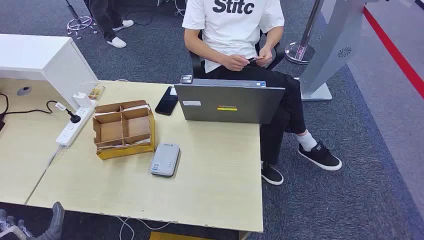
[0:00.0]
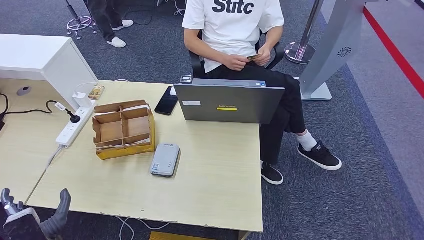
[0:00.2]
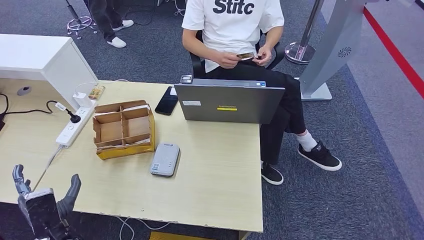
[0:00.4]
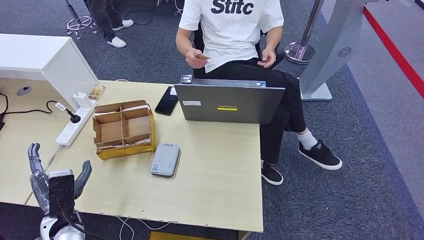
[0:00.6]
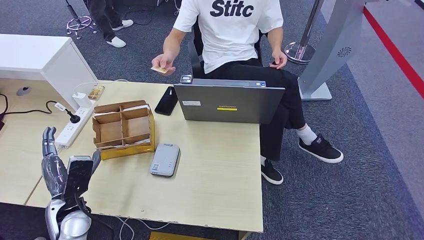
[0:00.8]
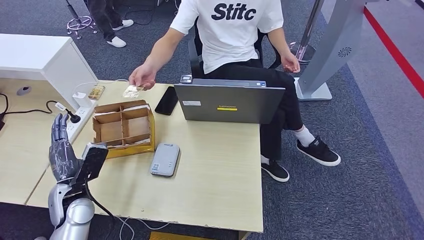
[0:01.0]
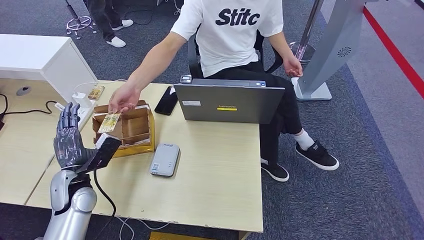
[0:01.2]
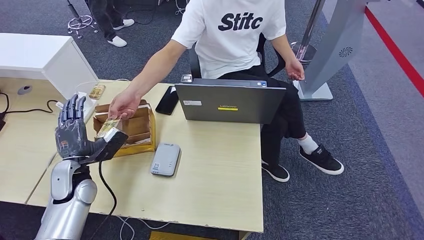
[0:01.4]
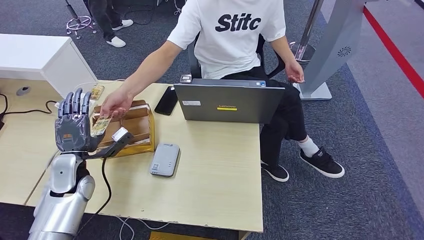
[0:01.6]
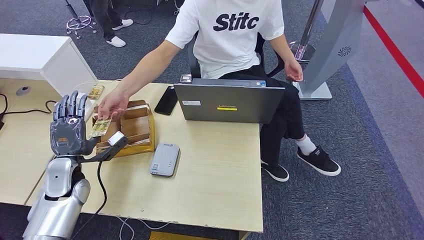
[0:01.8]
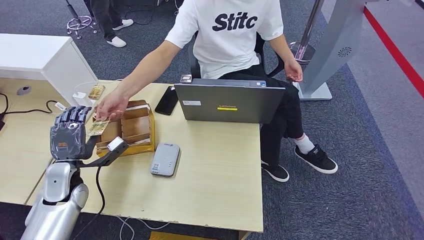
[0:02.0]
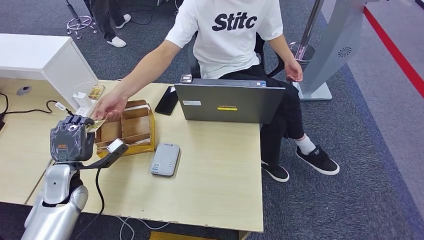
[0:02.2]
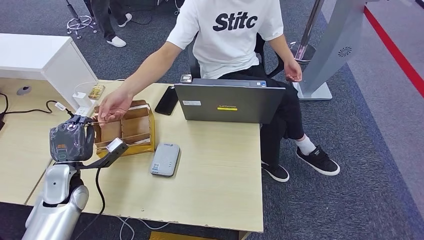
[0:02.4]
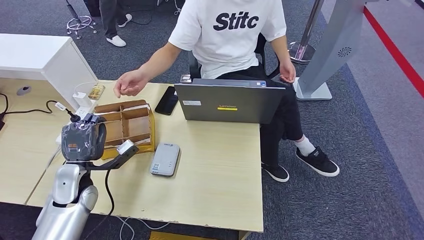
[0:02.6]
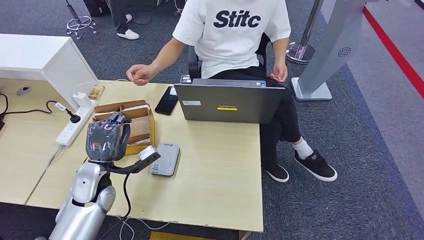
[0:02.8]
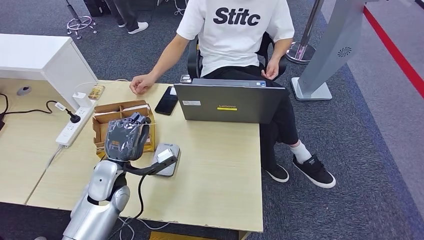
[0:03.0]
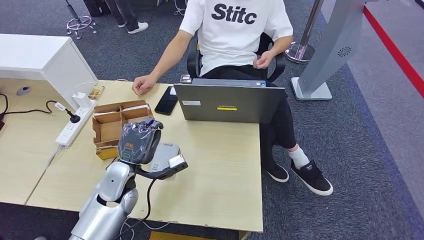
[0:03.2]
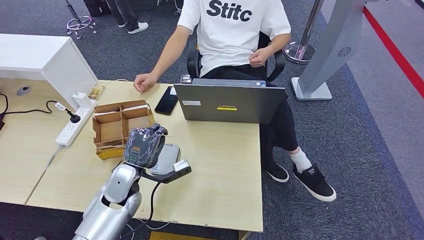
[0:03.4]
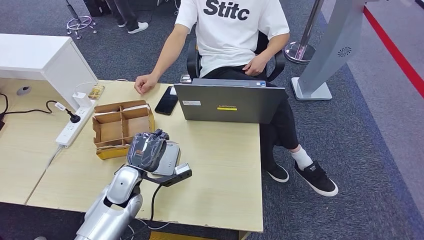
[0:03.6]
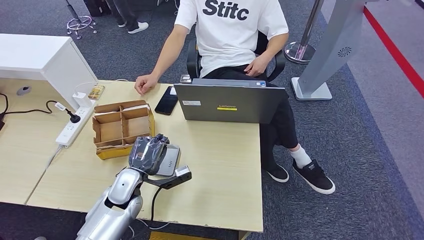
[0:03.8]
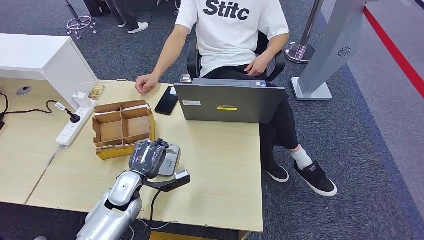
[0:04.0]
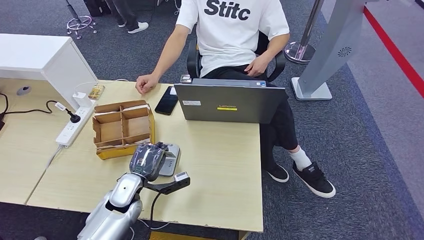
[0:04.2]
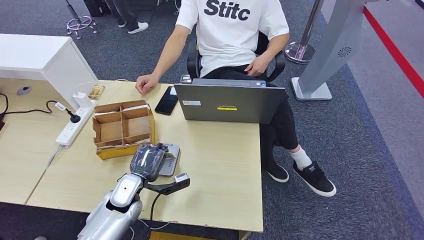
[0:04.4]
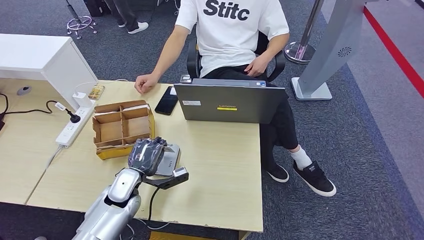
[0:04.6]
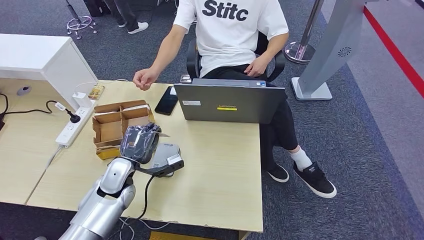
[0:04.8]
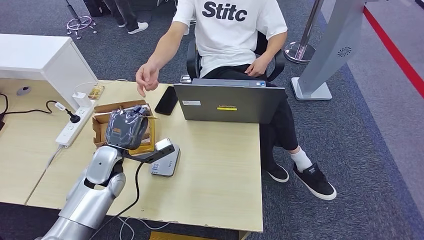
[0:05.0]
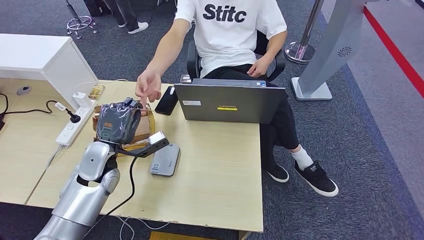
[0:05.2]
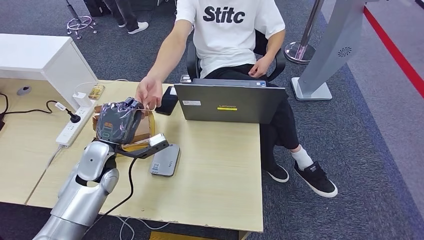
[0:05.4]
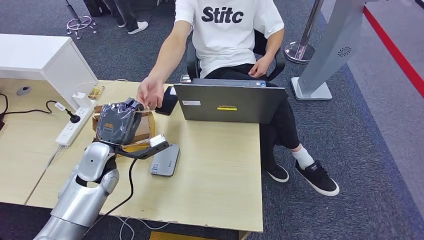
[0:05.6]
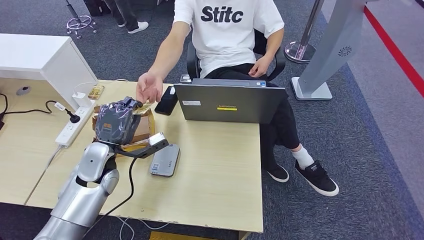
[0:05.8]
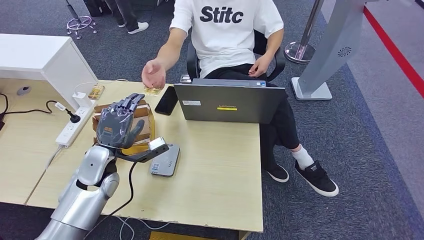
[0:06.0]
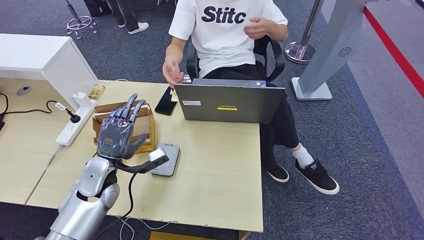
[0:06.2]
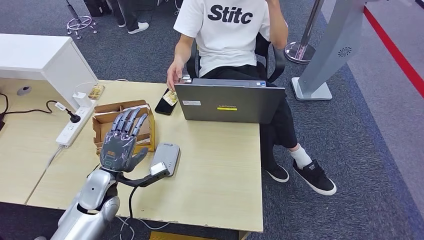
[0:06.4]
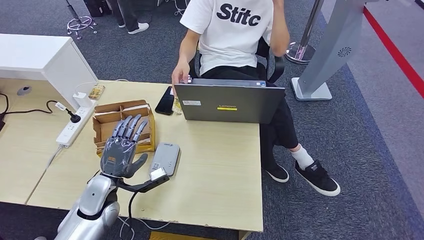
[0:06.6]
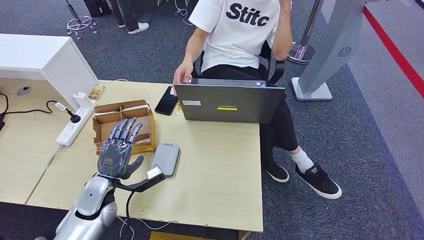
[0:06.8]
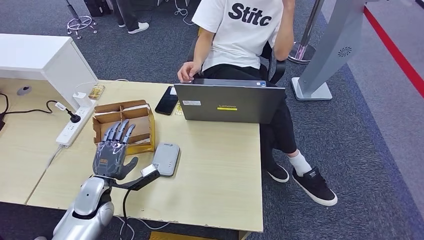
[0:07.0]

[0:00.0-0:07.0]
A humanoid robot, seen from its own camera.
Step, 0:00.0 to 0:02.2: Take the ID card from the person's hand.
Step, 0:02.6 to 0:04.4: Place the ID card on the card reader.
Step, 0:04.6 to 0:07.0: Hand the ID card to the person.
0:01.4 to 0:02.8: The left hand heads to the right, covering about 5 cm.
0:02.8 to 0:04.2: The left hand travels downward and to the right by some 10 cm.
0:04.2 to 0:05.6: The left hand goes some 10 cm upward and to the left.
0:05.6 to 0:07.0: The left hand moves downward and backward, about 10 cm.
